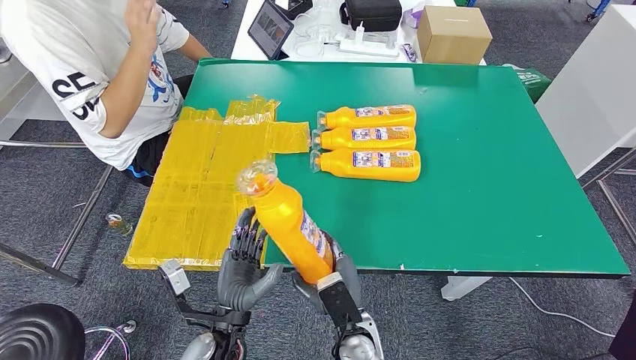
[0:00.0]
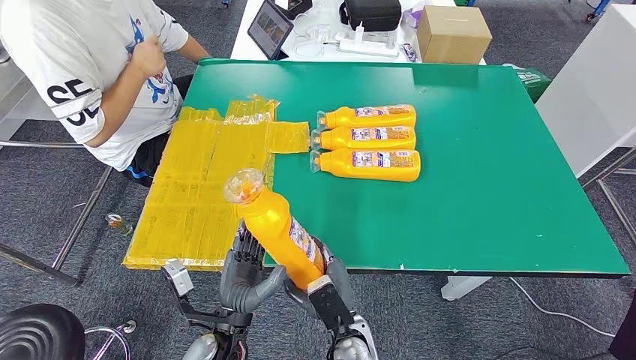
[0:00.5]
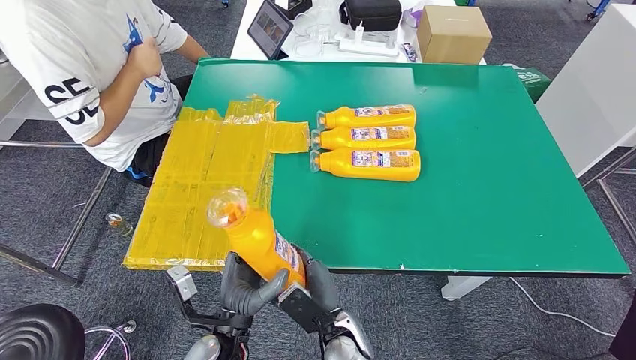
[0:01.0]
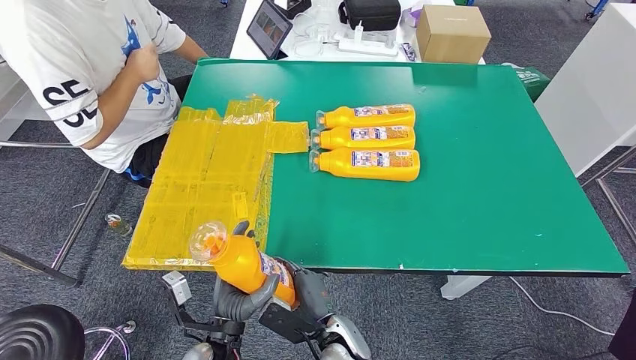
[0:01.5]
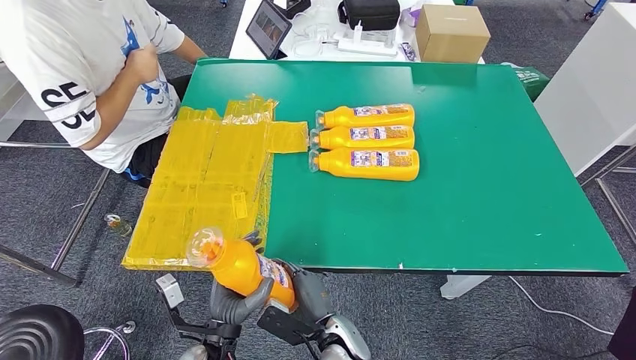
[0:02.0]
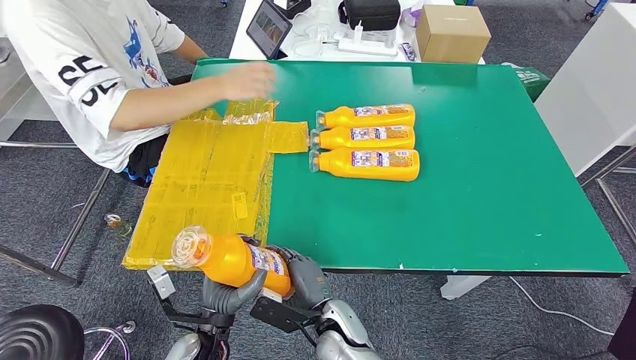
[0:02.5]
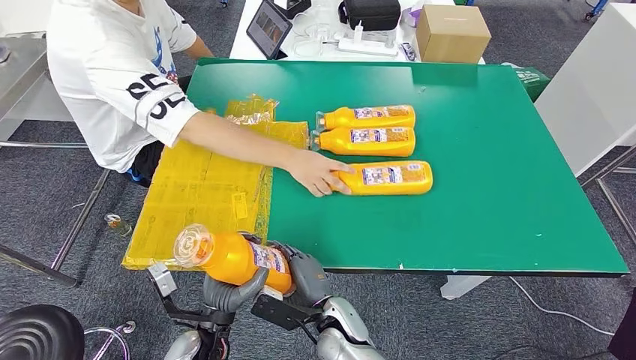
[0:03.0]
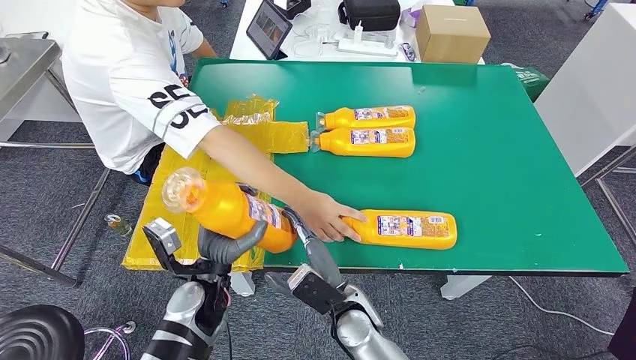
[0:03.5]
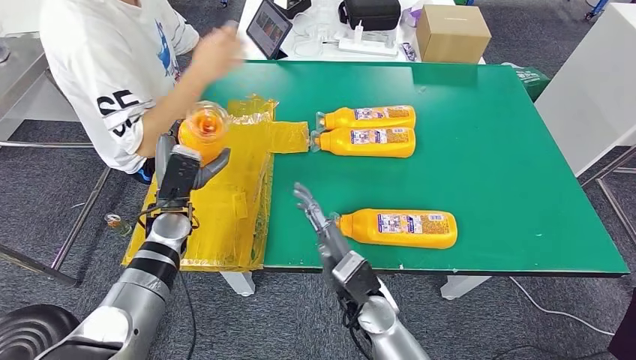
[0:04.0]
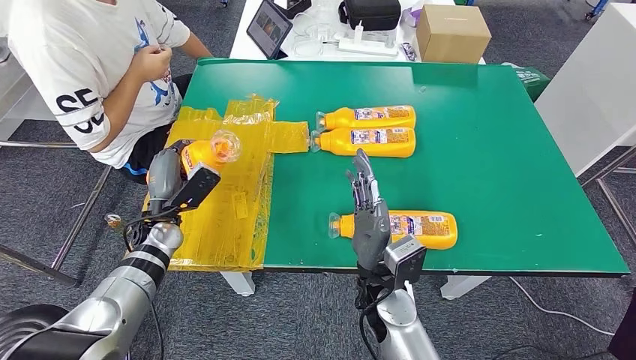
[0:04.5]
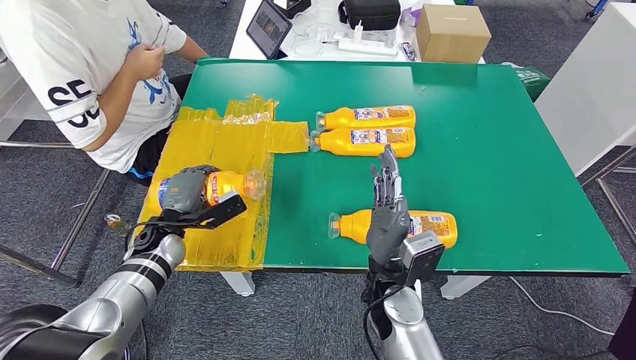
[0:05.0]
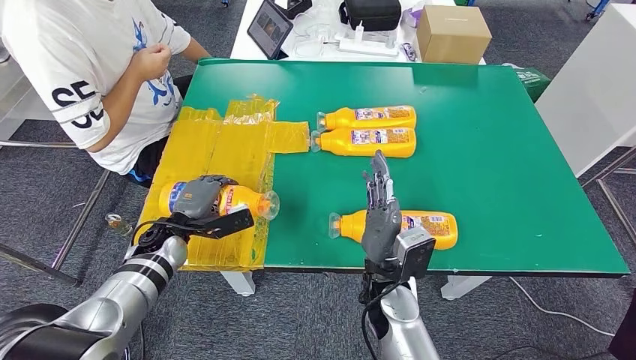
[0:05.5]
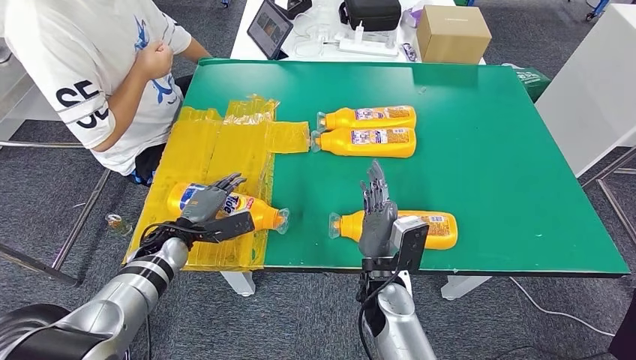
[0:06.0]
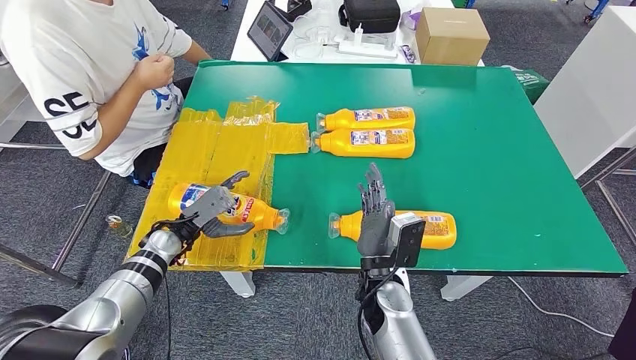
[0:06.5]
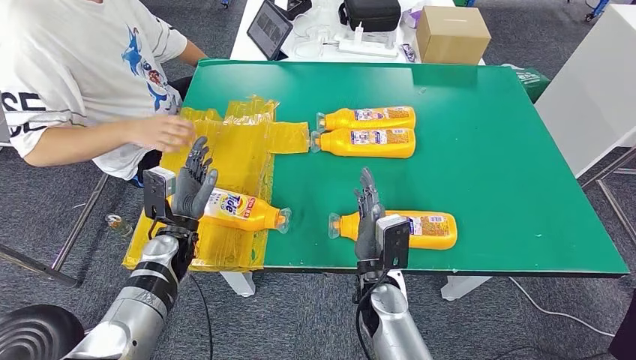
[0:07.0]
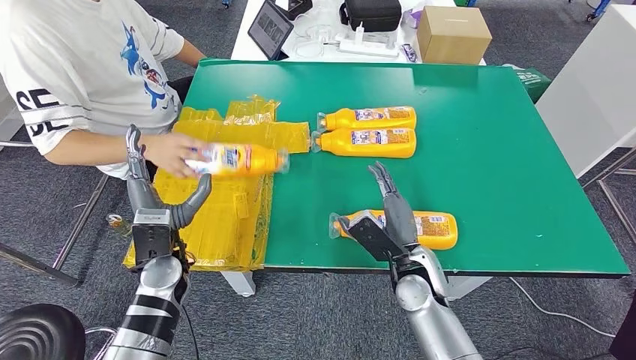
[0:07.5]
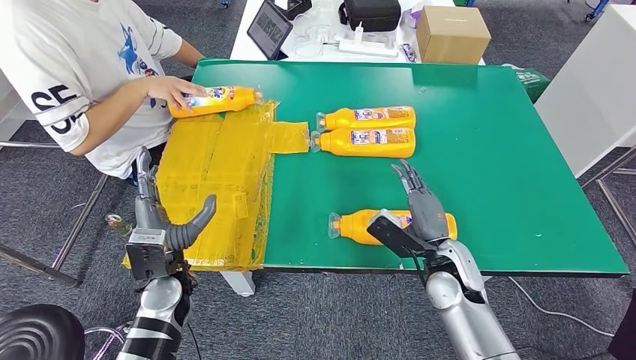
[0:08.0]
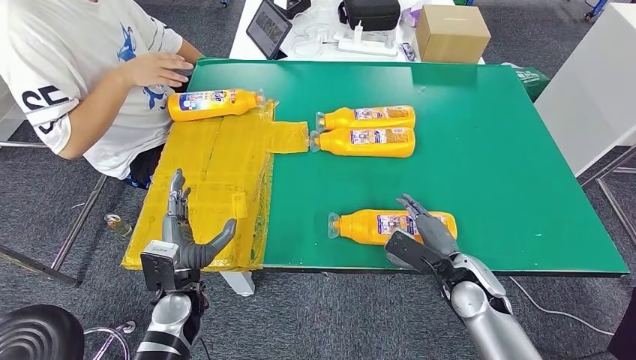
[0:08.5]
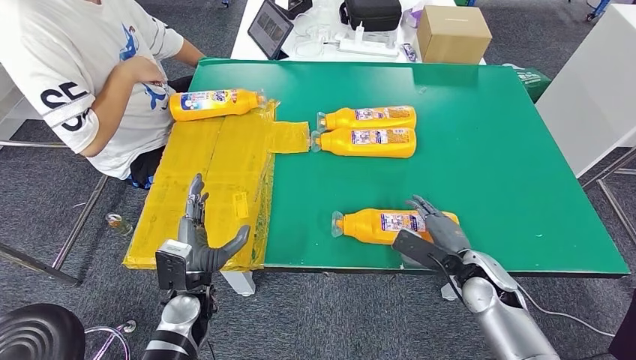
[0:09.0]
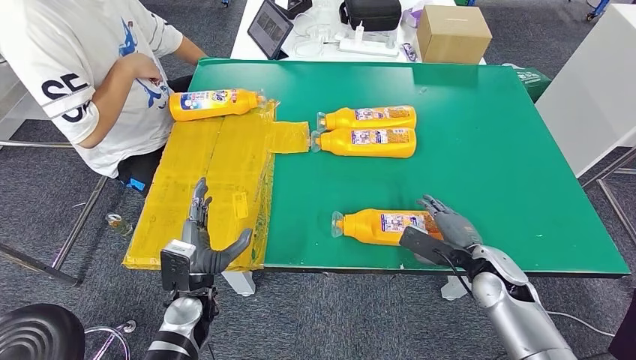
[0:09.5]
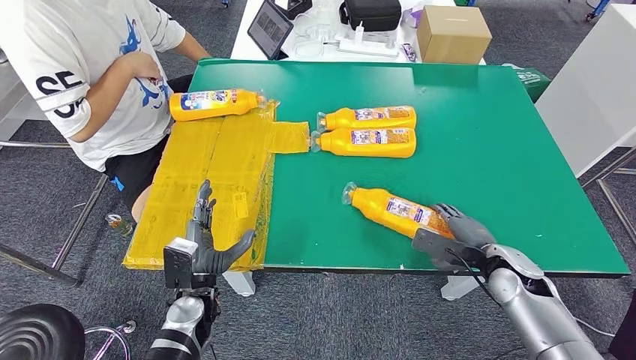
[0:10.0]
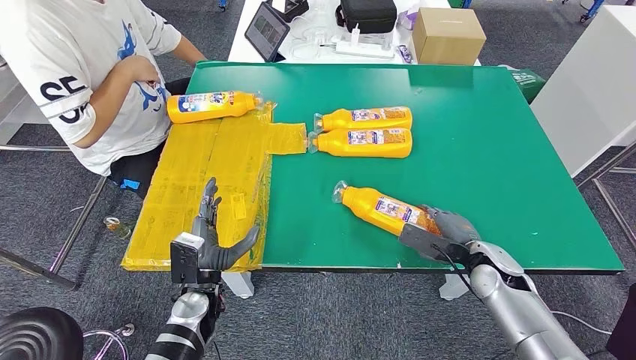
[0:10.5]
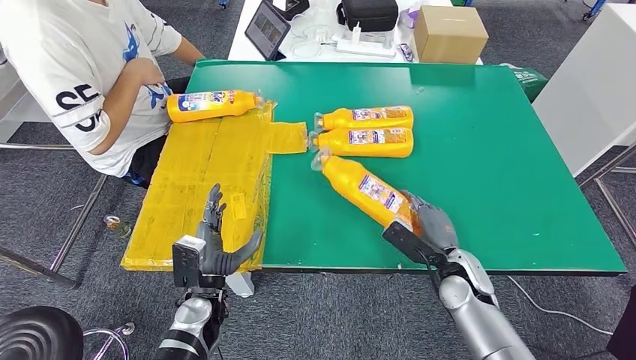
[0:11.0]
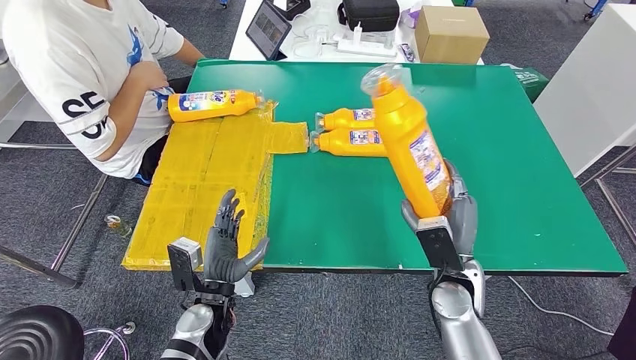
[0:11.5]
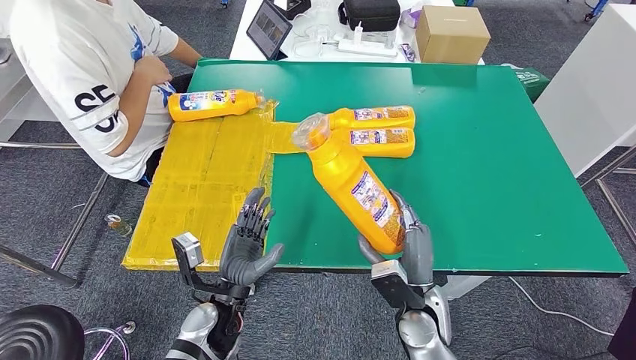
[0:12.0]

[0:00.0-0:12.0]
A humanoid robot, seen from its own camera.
Step, 0:01.0 to 0:05.5: Flip the fast-moving consumer goods bottle to the front side.

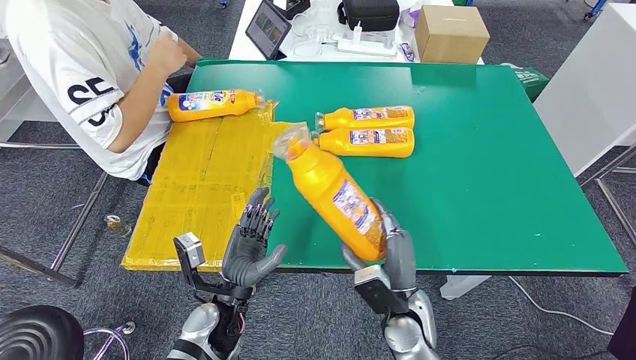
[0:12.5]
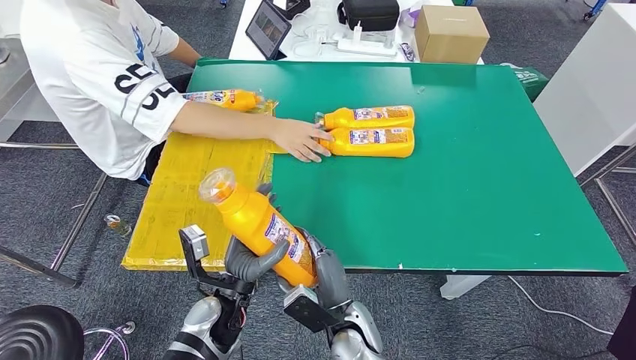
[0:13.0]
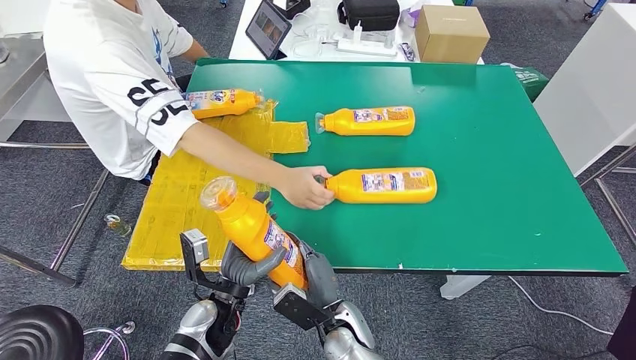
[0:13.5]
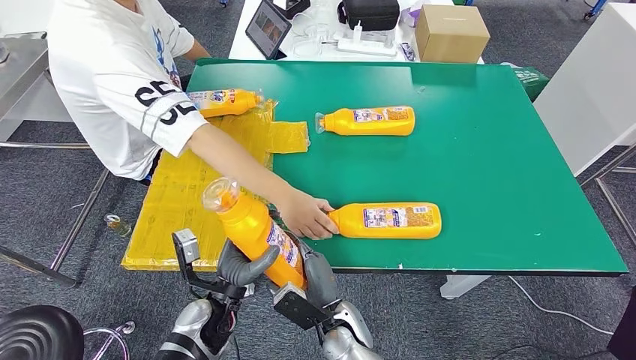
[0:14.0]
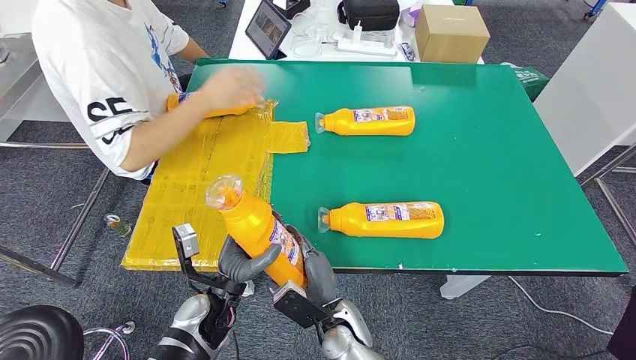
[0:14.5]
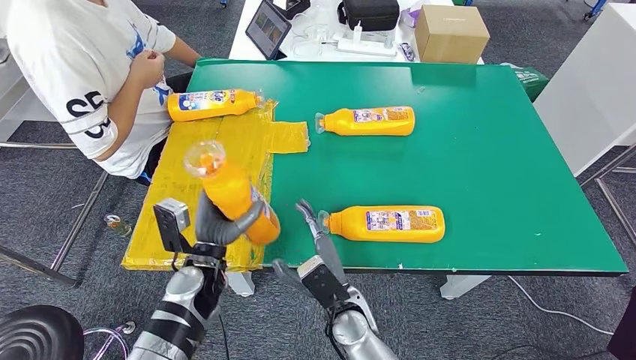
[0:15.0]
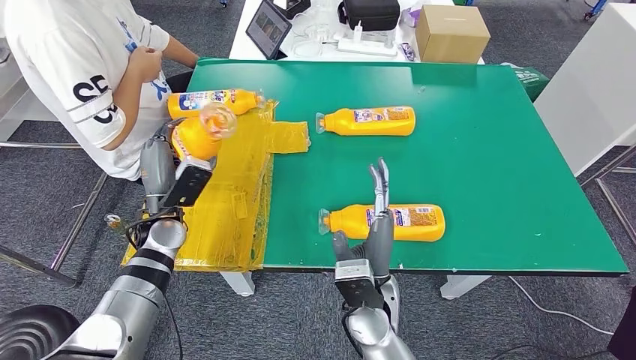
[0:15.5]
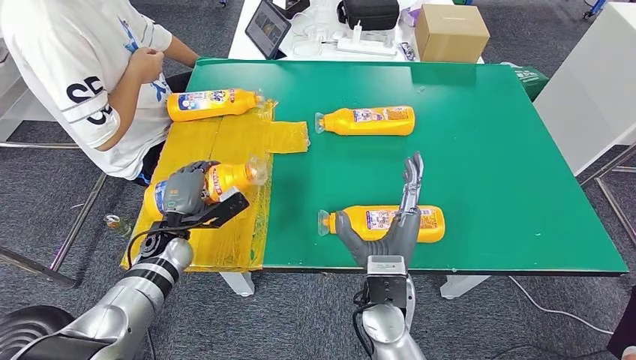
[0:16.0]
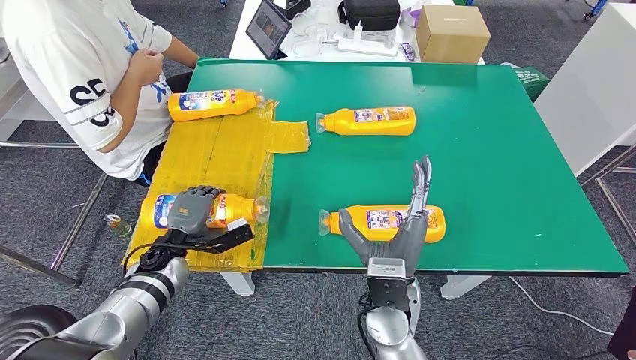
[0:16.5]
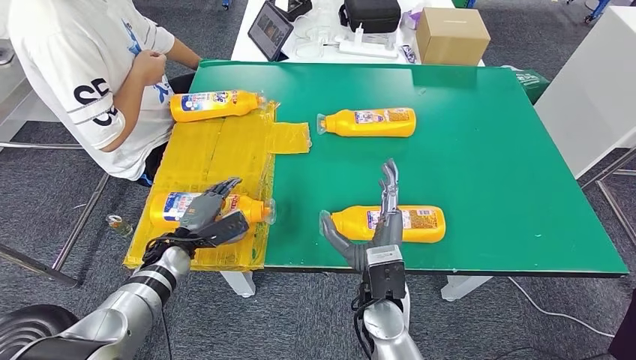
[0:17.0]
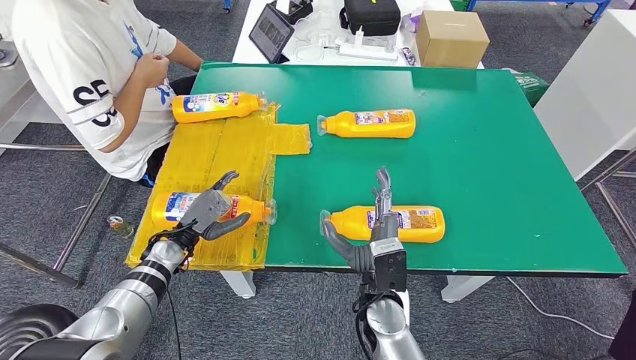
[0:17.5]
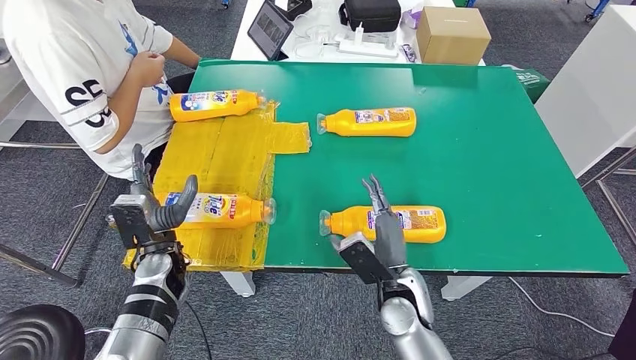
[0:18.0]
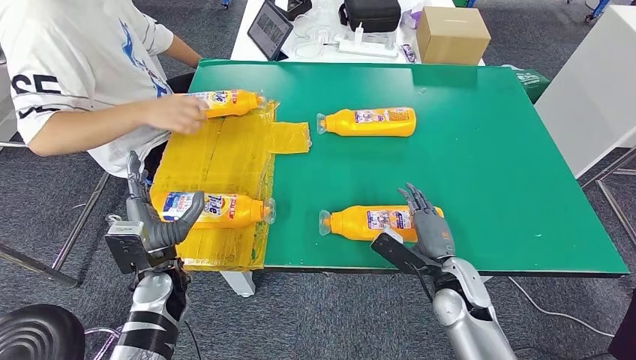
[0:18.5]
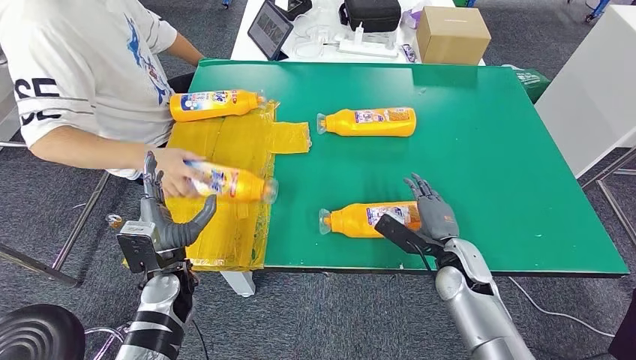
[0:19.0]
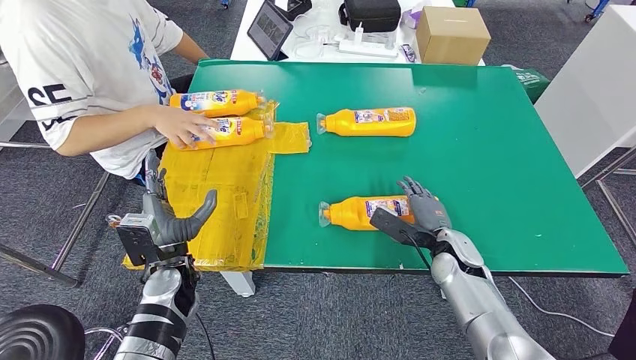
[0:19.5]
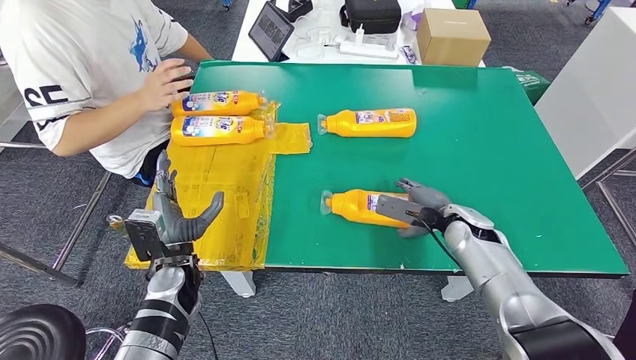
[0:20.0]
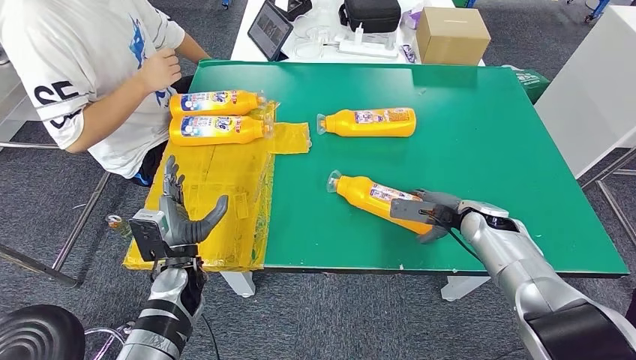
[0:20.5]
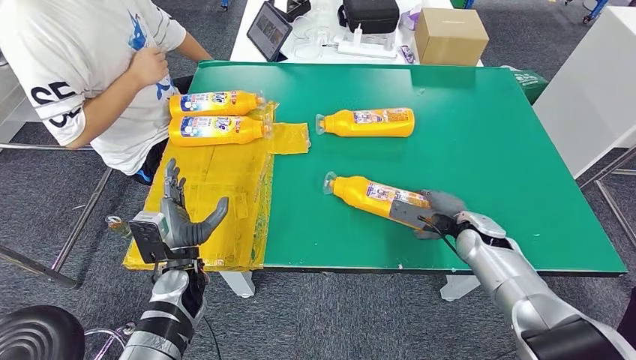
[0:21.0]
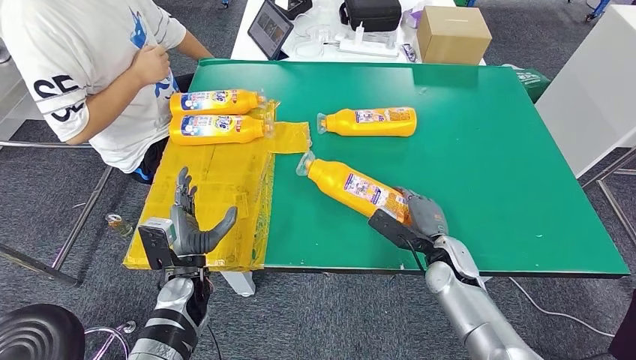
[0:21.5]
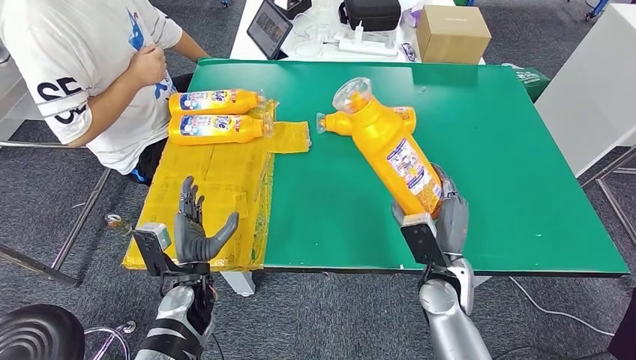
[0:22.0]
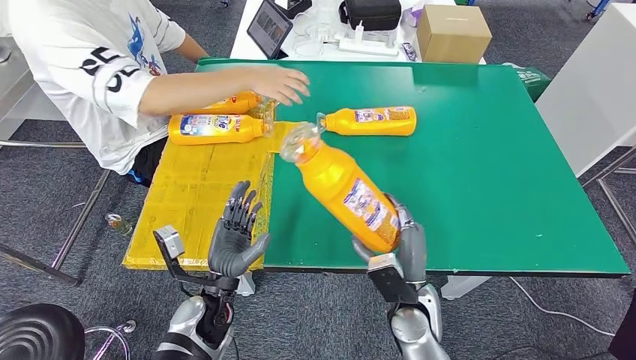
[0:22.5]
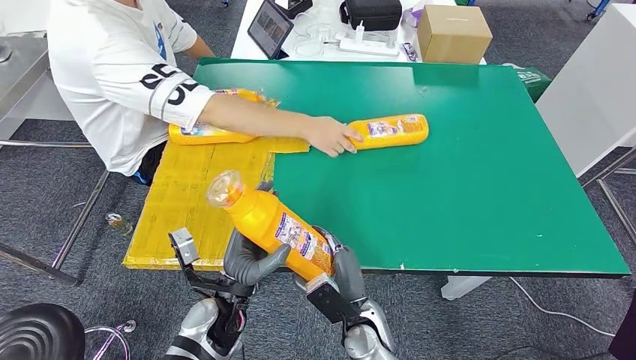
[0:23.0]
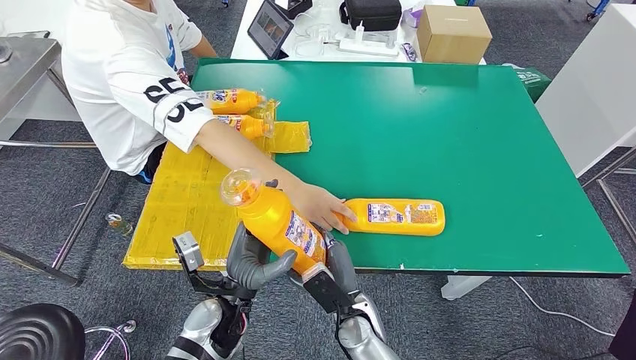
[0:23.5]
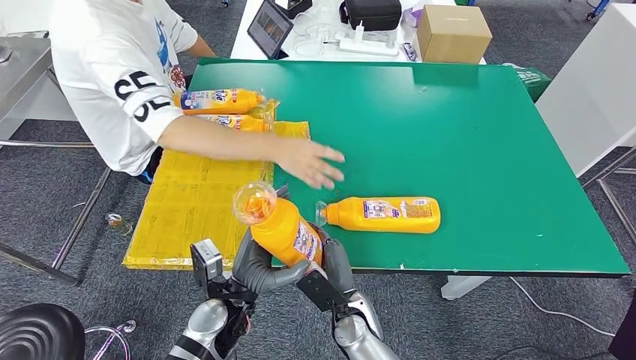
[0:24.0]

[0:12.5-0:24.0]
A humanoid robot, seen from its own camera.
Step, 0:14.0 to 0:17.0: Flip the fast-moving consumer goods bottle to the front side.
